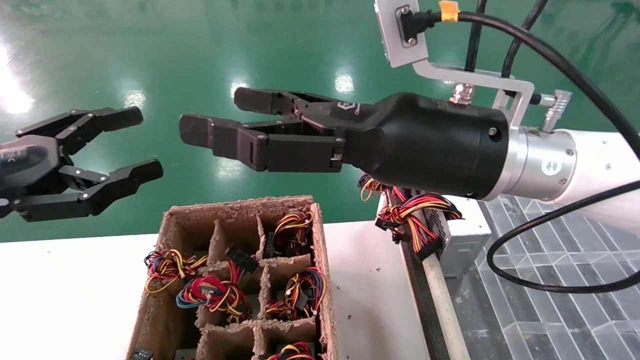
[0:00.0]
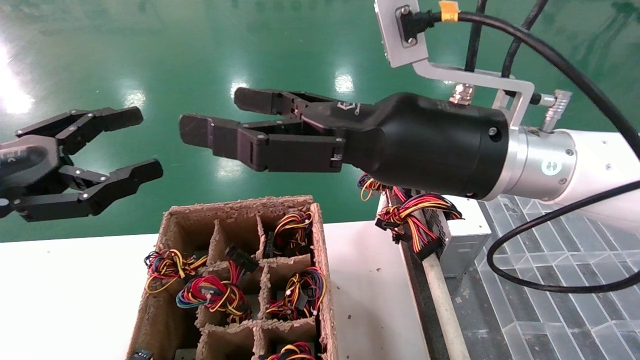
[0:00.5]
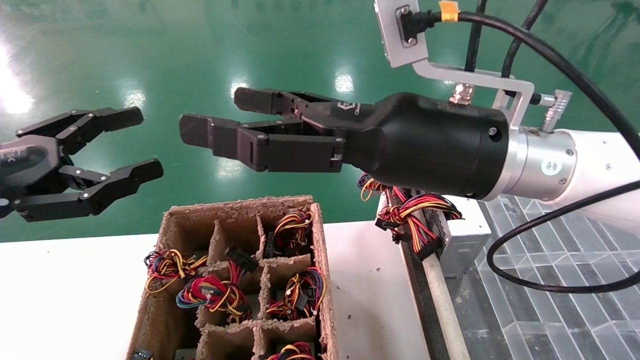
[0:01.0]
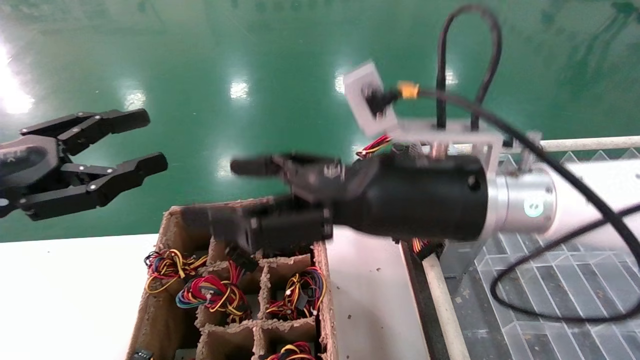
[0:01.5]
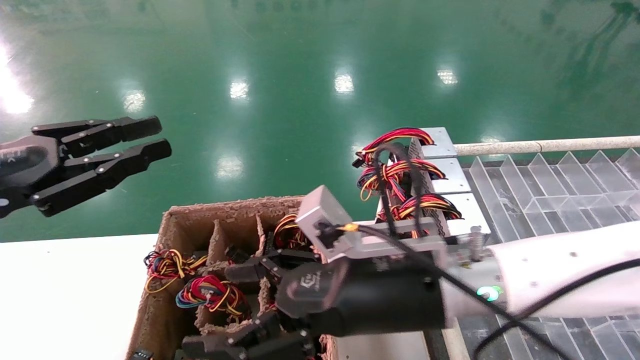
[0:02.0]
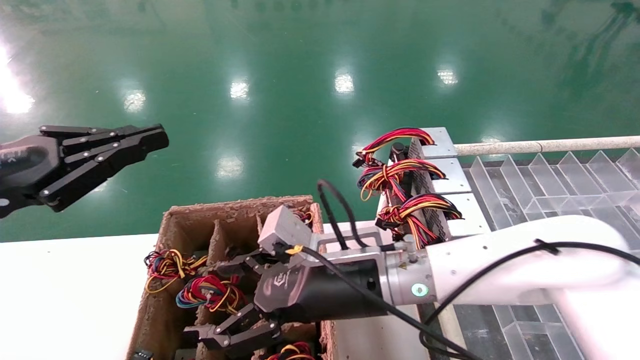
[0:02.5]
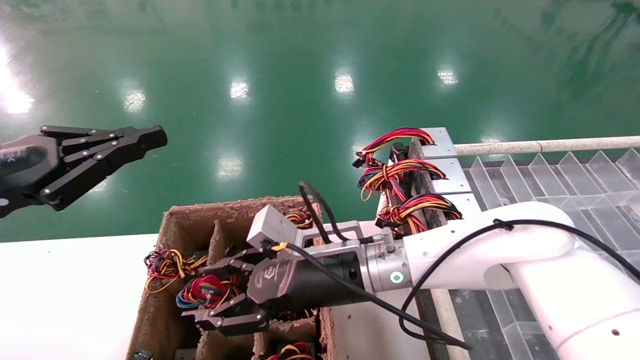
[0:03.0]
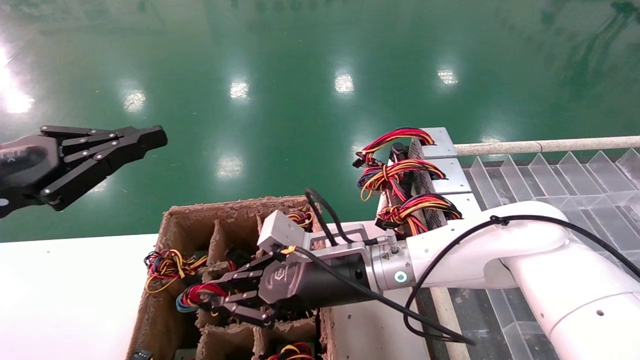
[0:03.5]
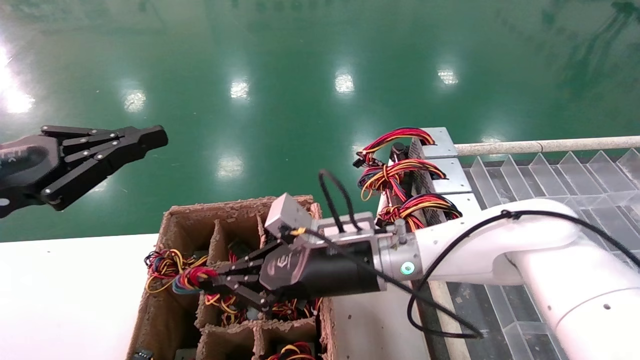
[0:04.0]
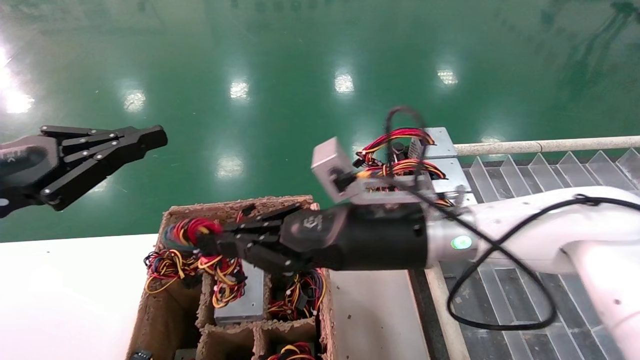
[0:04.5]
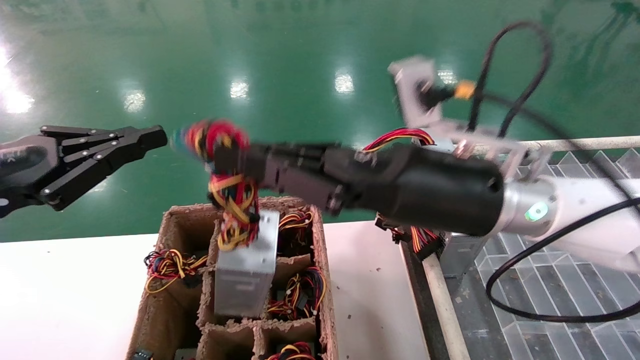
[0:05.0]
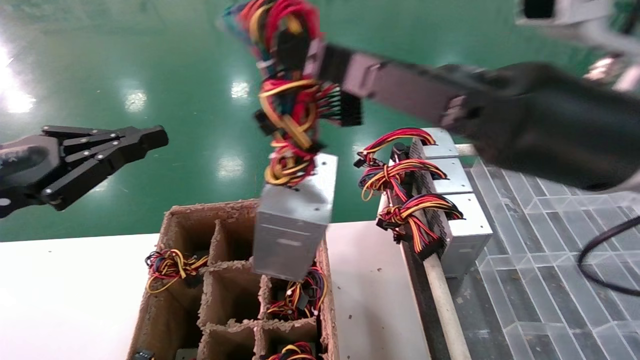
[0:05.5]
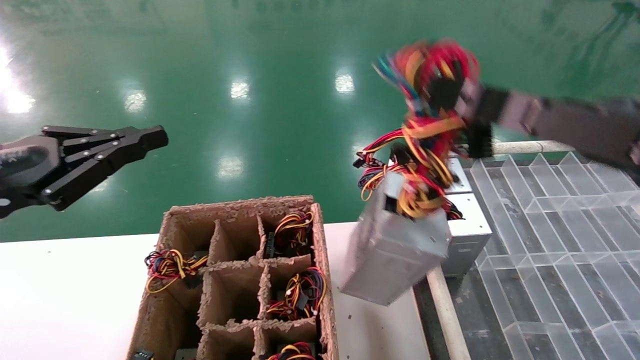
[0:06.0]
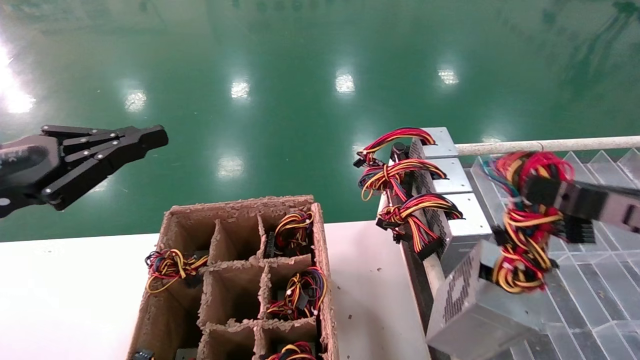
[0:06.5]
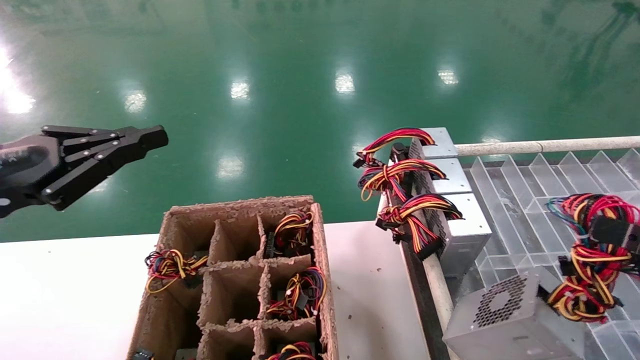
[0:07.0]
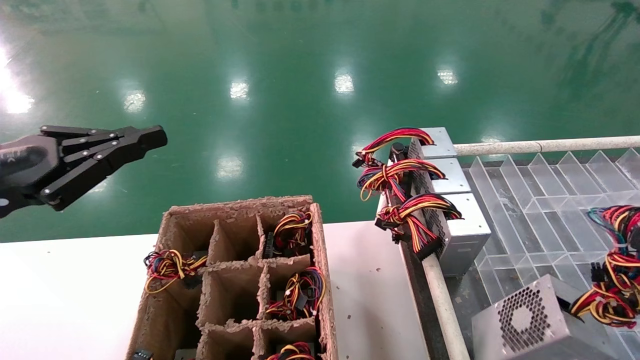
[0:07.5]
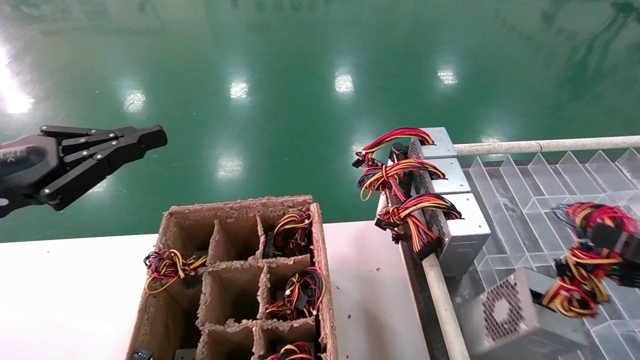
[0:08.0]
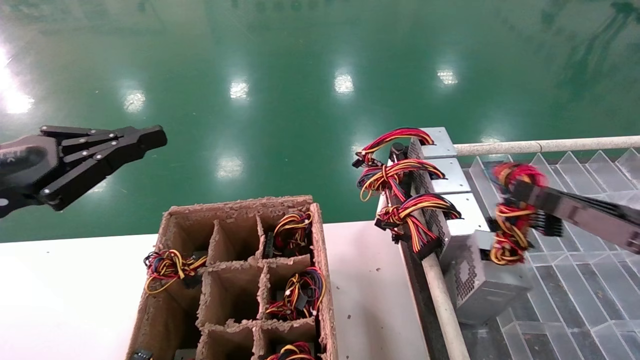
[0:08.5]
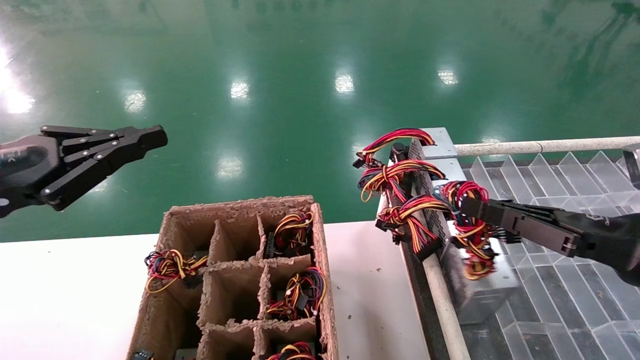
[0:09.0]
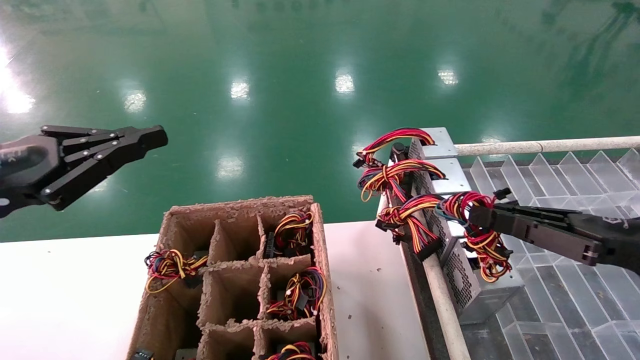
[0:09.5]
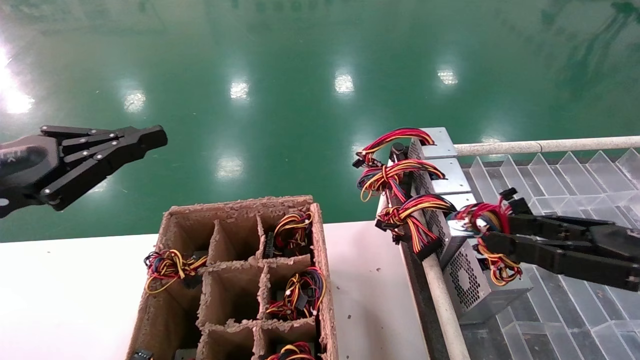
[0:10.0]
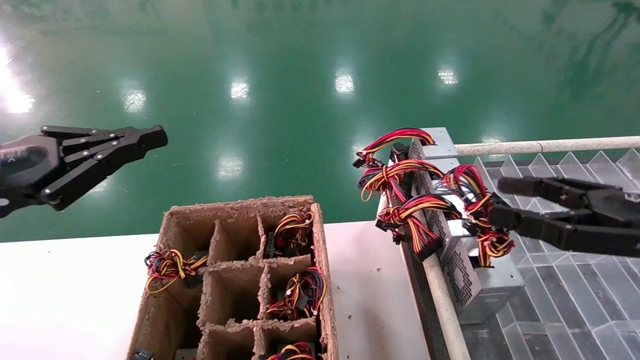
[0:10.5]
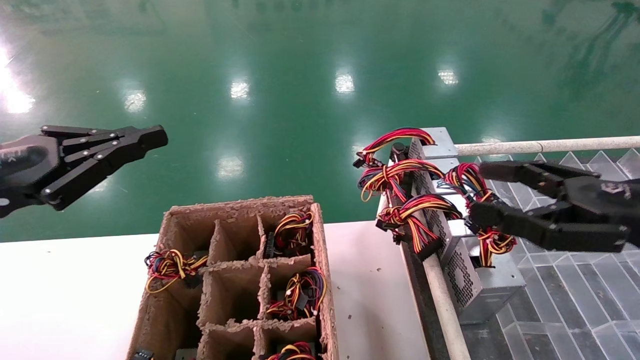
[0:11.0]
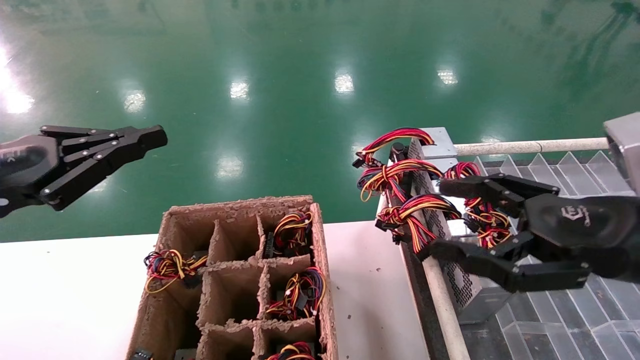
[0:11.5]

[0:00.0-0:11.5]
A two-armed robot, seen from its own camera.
Step, 0:02.0 to 0:03.5: Grab the main unit power supply from the containment box.
Step, 0:04.0 to 0:10.5: Place the main unit power supply in the designated area.
0:00.0 to 0:02.0: The left gripper closes its fingers; the right gripper goes approximately 10 cm downward.
0:02.0 to 0:04.0: The right gripper goes approximately 10 cm forward, and closes its fingers; the left gripper closes its fingers.
0:04.0 to 0:06.0: The right gripper travels to the right, backward and upward by roughly 30 cm.
0:06.0 to 0:07.5: The right gripper heads to the right, downward and backward, covering approximately 20 cm.
0:07.5 to 0:09.5: The right gripper heads forward and to the left, covering some 15 cm.
0:09.5 to 0:11.5: The right gripper goes some 5 cm to the left, and opens up.

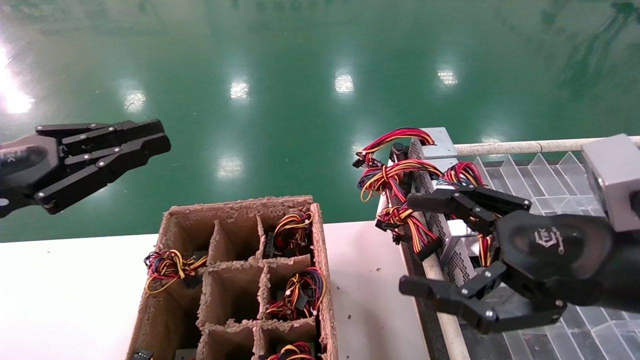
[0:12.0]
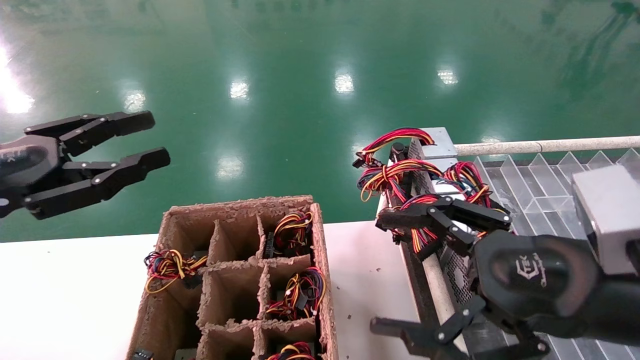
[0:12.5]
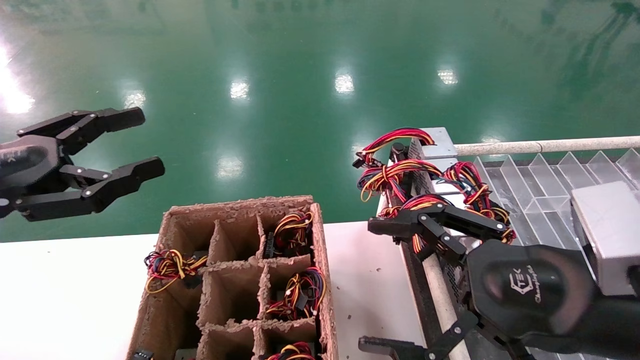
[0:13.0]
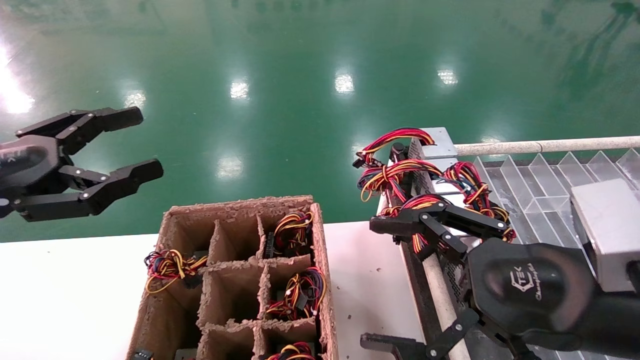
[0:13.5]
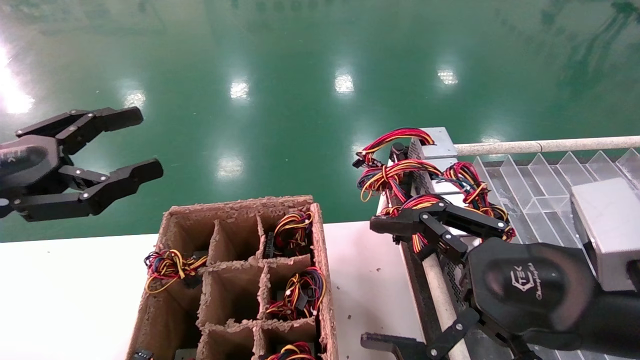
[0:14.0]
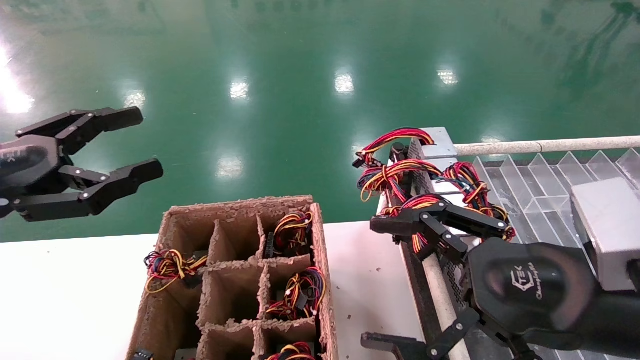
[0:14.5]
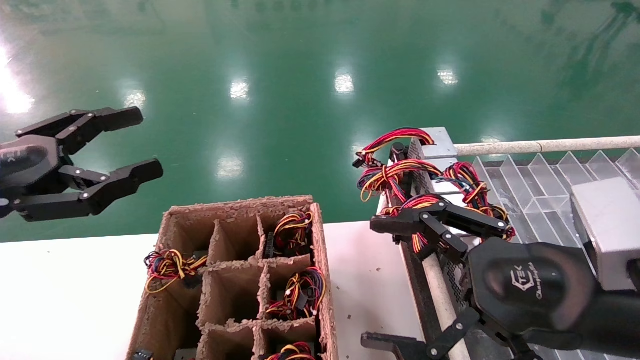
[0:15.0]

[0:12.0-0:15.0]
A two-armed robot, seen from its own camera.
0:12.0 to 0:13.5: The left gripper opens its fingers.
0:13.5 to 0:15.0: The two grippers keep their place.
